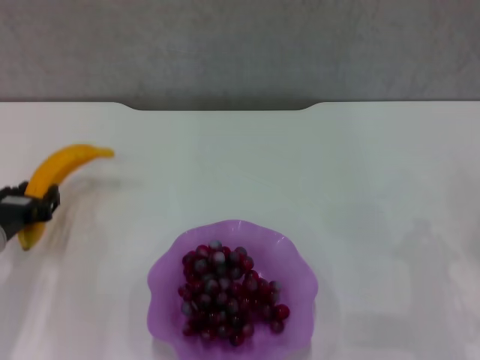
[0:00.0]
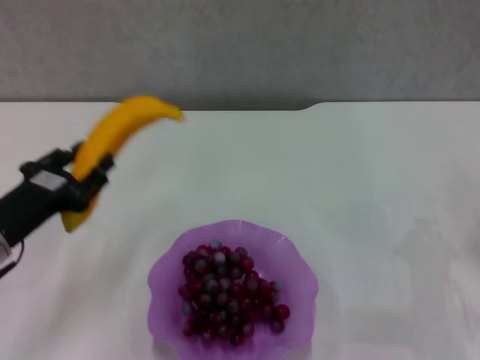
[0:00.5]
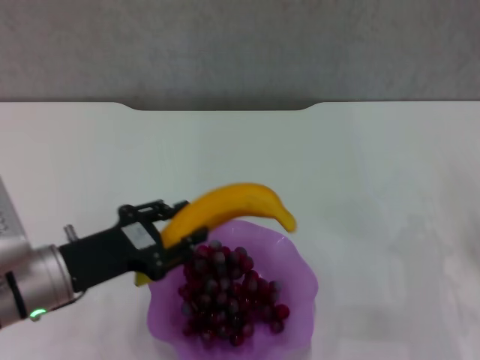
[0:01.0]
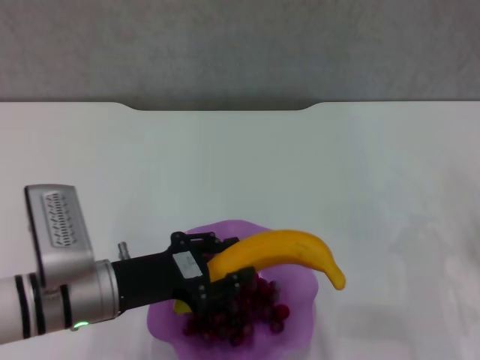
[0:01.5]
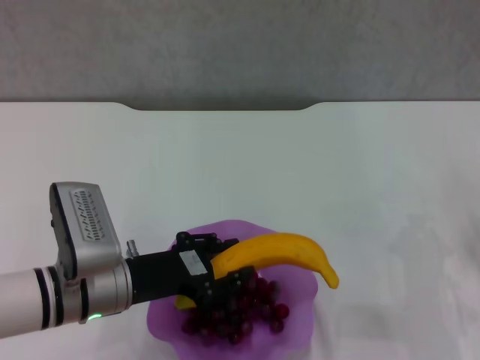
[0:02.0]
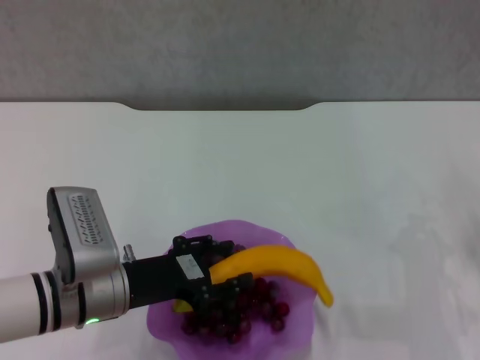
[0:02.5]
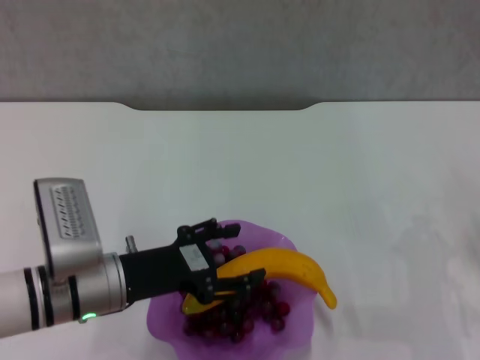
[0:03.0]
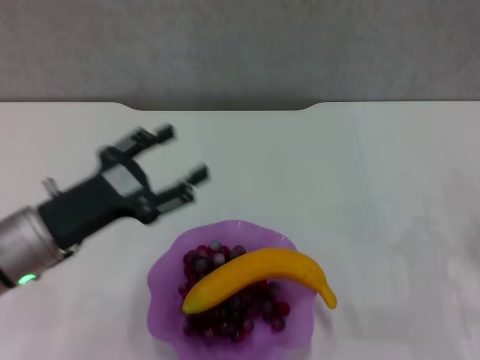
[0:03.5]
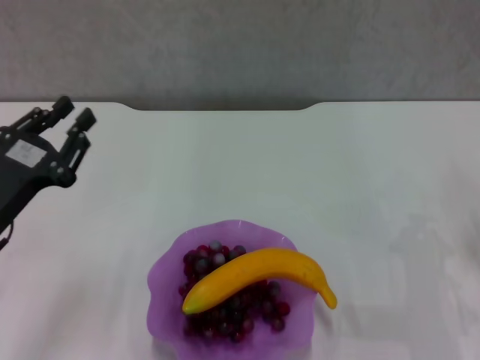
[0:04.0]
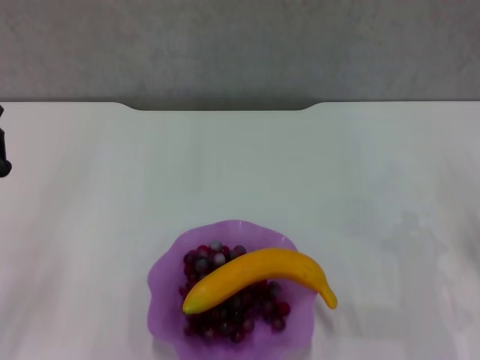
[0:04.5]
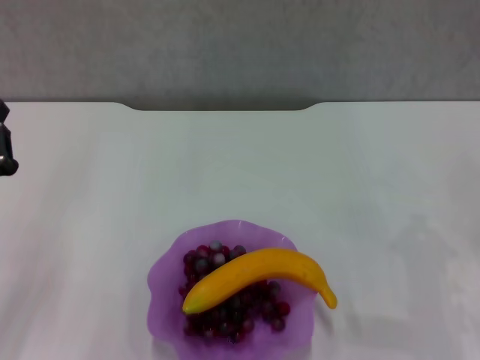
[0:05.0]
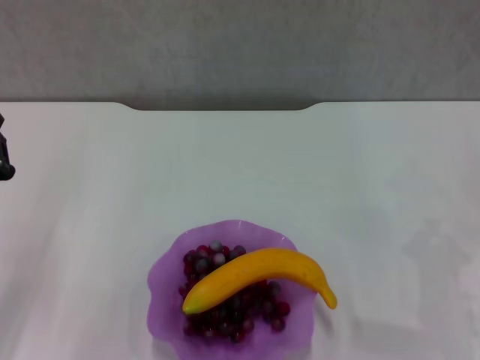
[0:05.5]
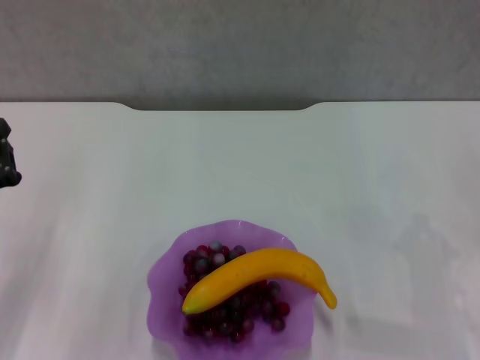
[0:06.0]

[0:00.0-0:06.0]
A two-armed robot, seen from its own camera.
Step, 0:00.0 to 0:03.0: Place the grape in the purple plate with left gripper.
0:00.0 to 0:02.0: The left gripper is displaced to the right by about 10 cm.
0:02.0 to 0:04.0: The left gripper is displaced to the left by some 10 cm, and opens, then closes once more.
0:04.0 to 0:06.0: The left gripper closes its fingers.

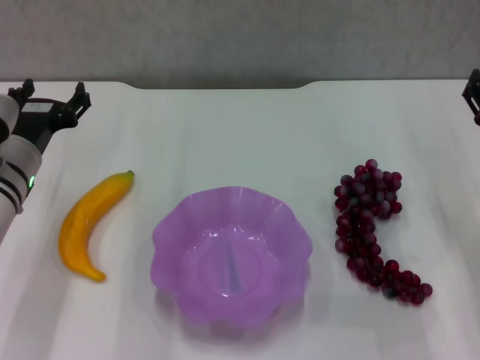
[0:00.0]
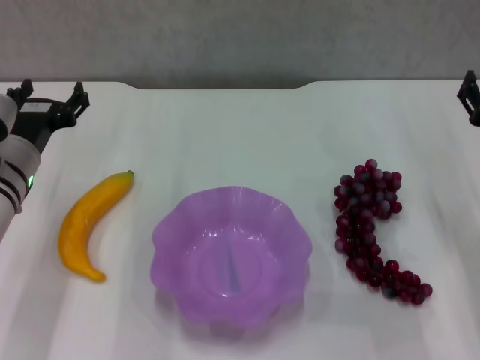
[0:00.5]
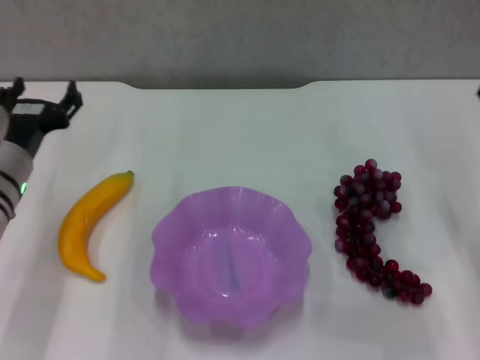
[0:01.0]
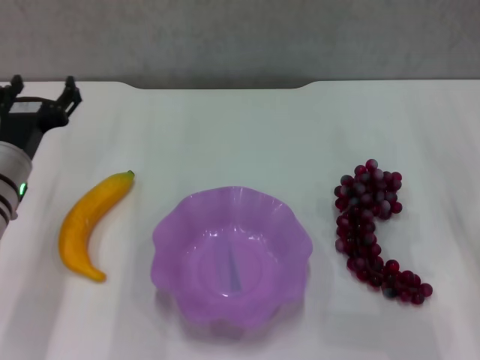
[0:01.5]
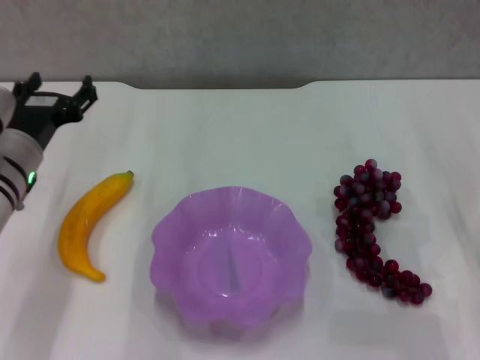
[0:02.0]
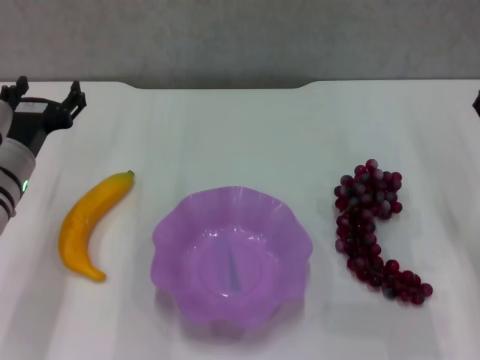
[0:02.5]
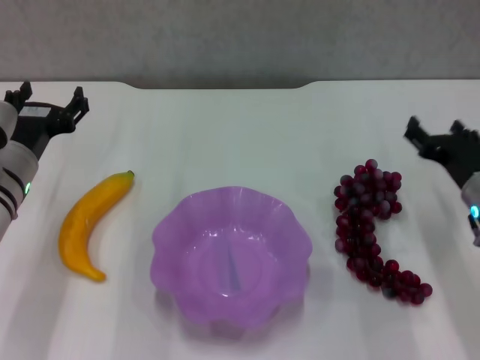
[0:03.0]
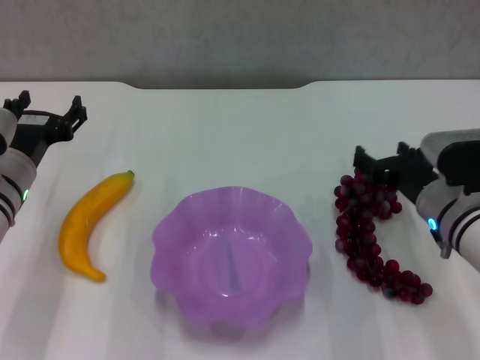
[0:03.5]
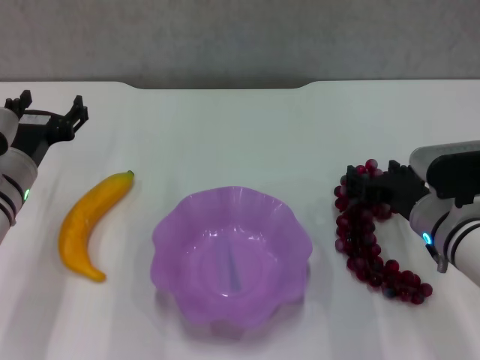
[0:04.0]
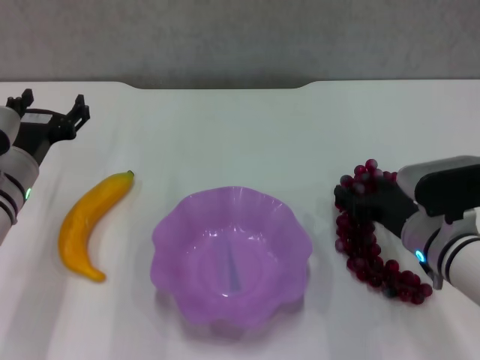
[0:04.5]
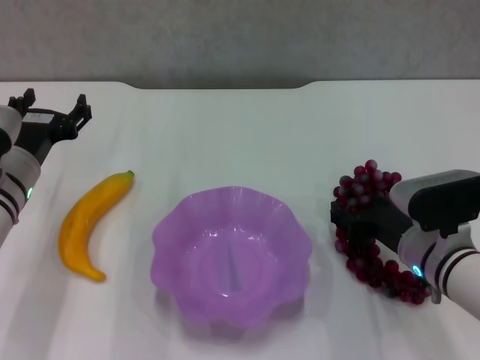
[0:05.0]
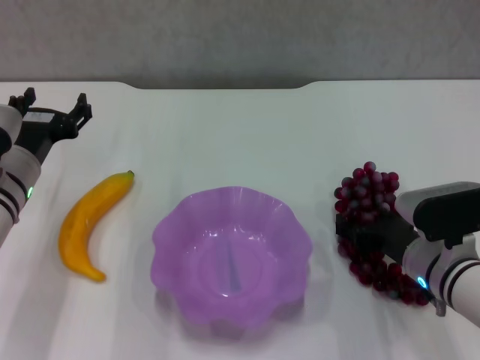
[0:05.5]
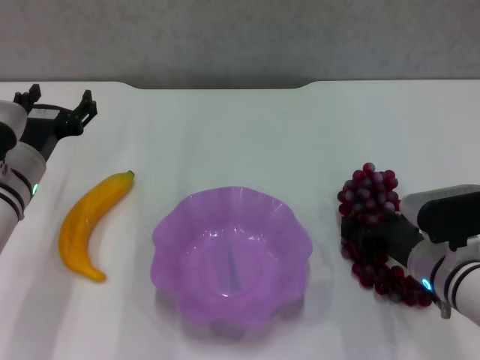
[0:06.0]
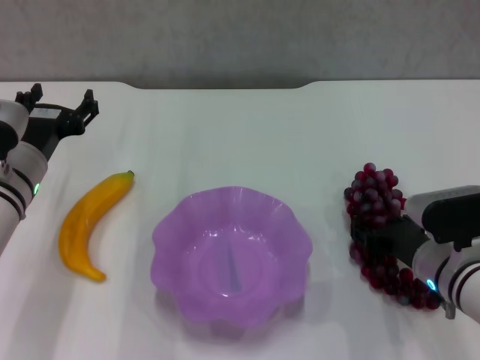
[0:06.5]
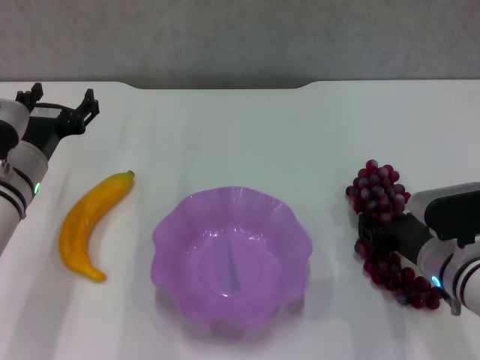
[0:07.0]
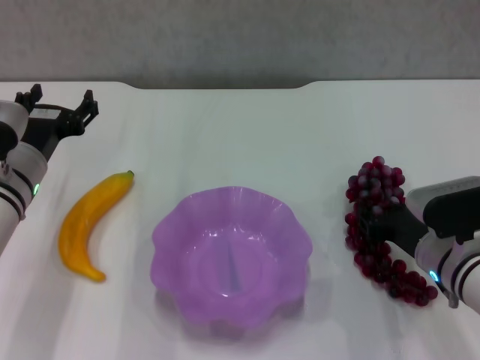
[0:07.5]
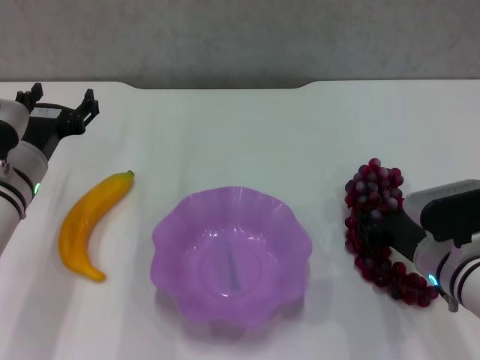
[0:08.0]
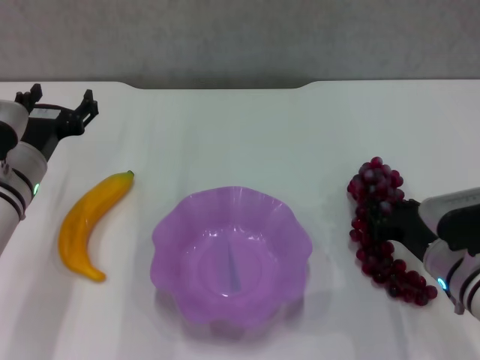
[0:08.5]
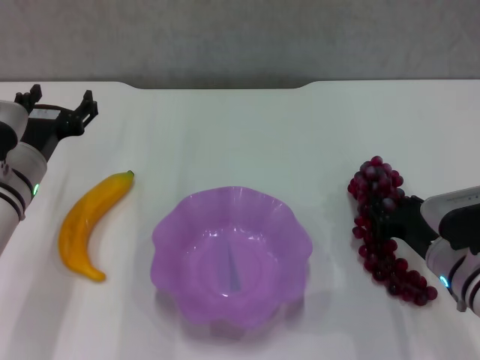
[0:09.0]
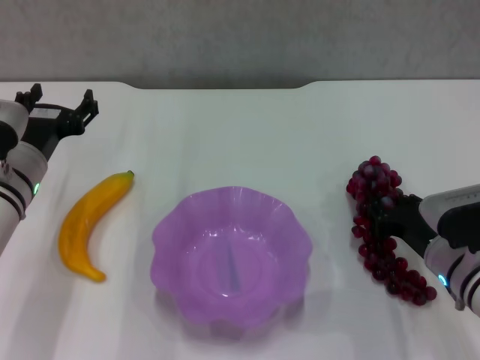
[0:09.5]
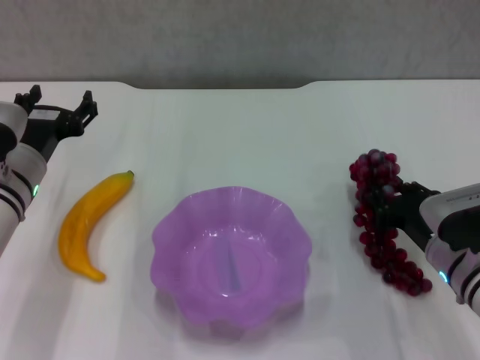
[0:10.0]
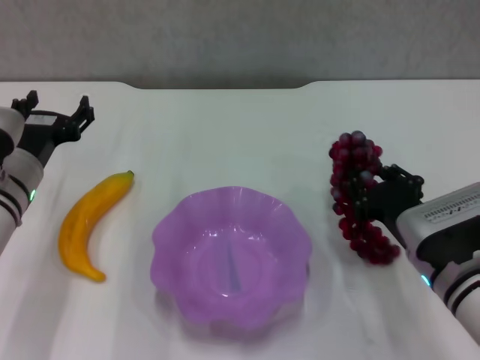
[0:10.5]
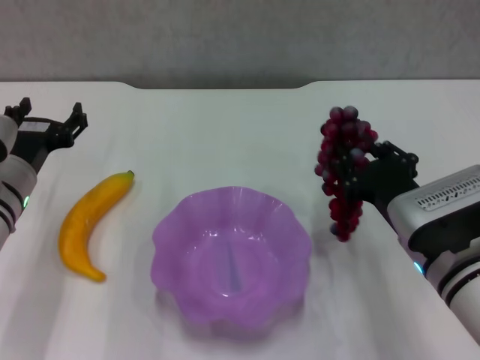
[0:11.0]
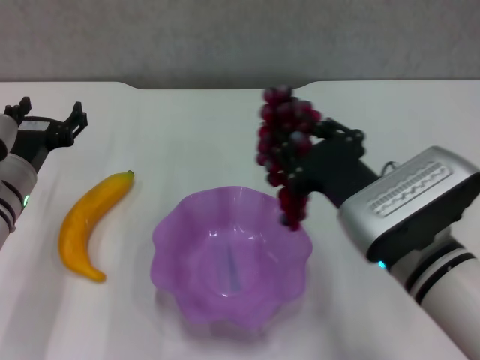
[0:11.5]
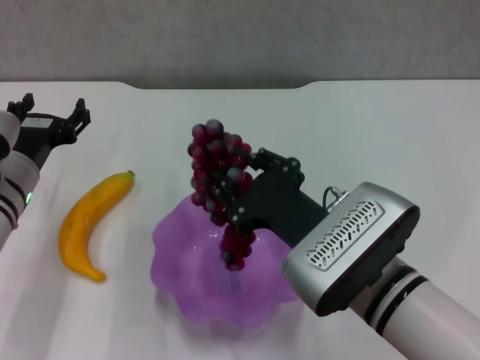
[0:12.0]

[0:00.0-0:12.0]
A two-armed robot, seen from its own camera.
Step, 0:00.0 to 0:06.5: Grasp the grape with right gripper.
0:00.0 to 0:02.0: The grippers move only a little.
0:02.0 to 0:04.0: The right gripper moves to the left, some 10 cm.
0:04.0 to 0:06.0: There are only small adjustments of the grippers.
0:06.0 to 0:08.0: The right gripper closes up.
0:08.0 to 0:10.0: The grippers make only small movements.
0:10.0 to 0:12.0: The right gripper goes some 15 cm to the left, upward and backward.

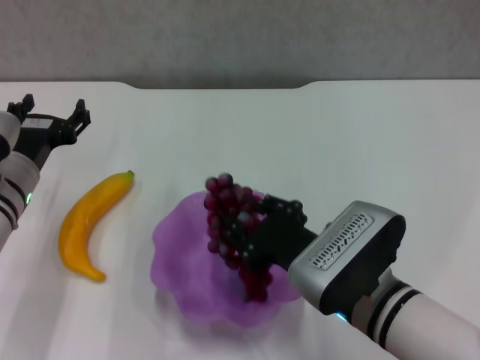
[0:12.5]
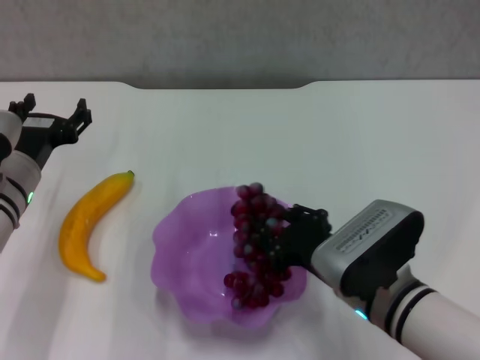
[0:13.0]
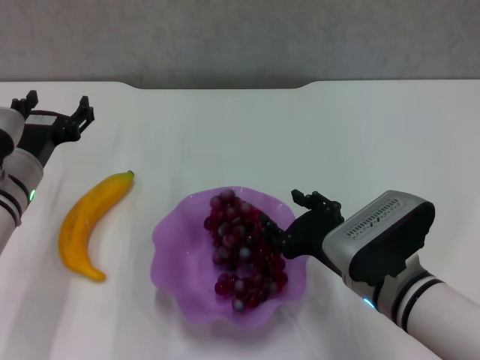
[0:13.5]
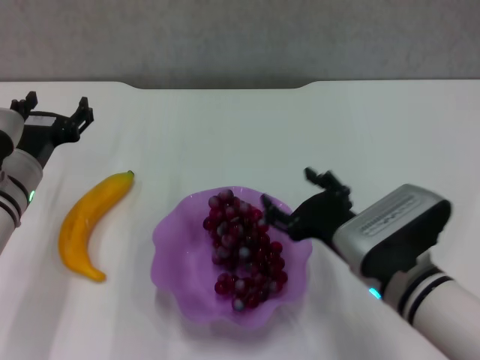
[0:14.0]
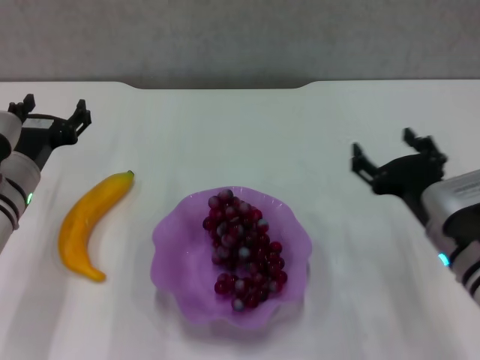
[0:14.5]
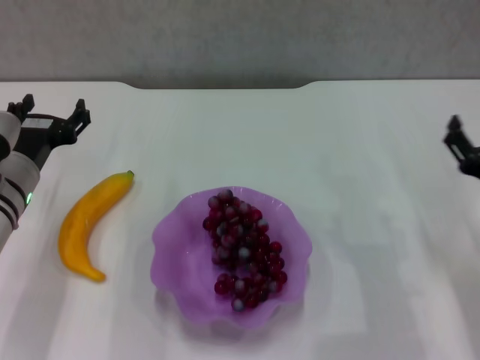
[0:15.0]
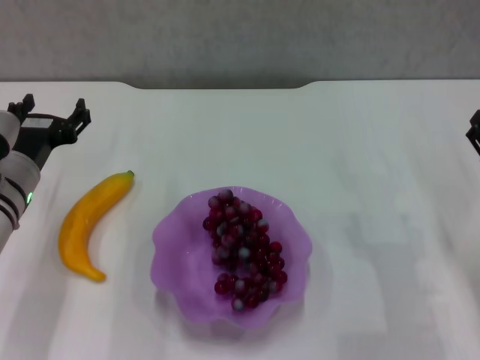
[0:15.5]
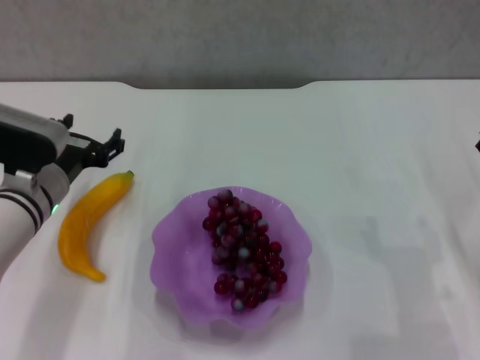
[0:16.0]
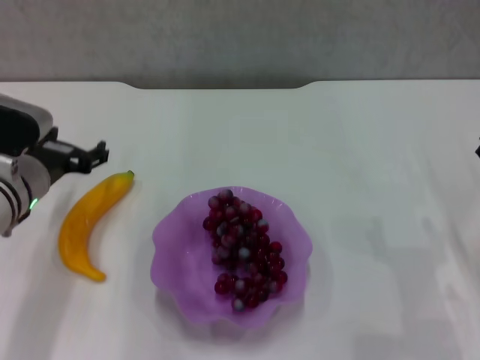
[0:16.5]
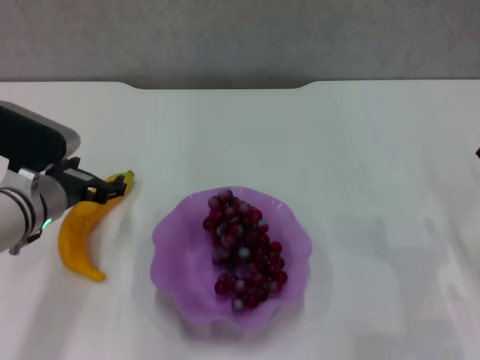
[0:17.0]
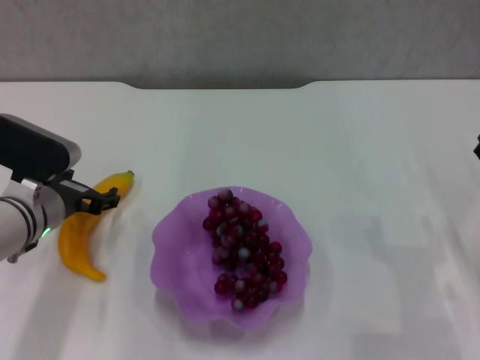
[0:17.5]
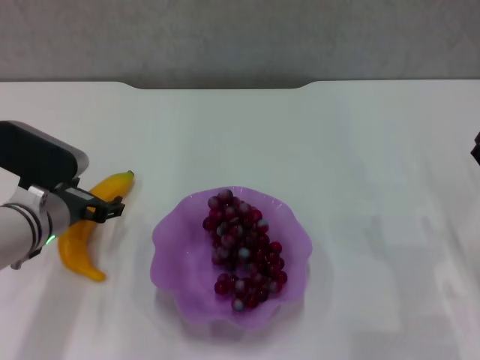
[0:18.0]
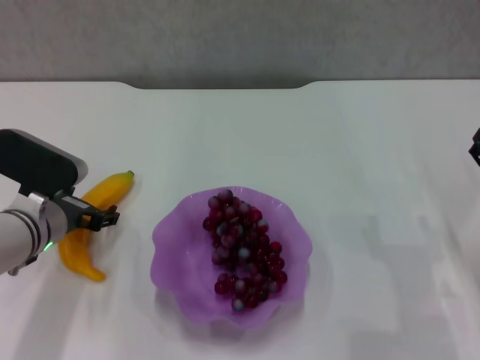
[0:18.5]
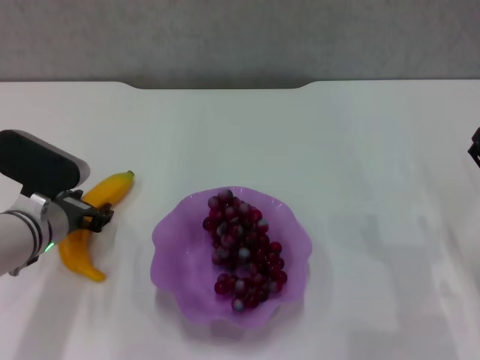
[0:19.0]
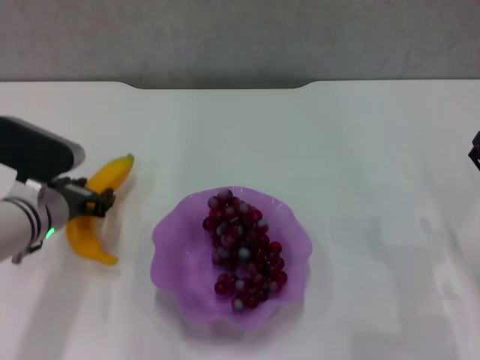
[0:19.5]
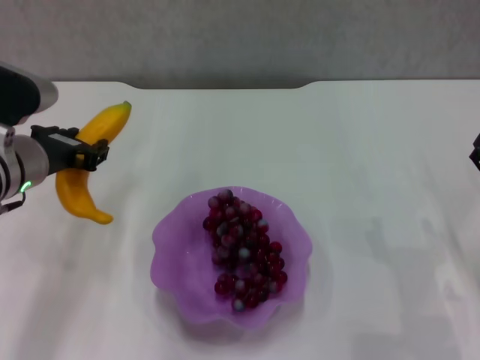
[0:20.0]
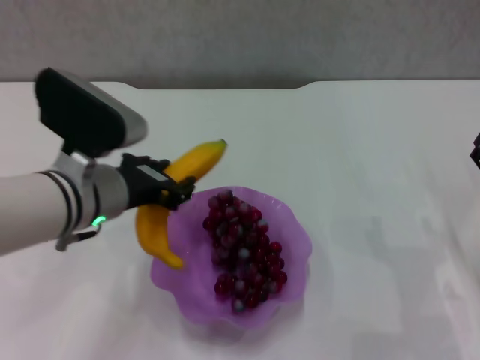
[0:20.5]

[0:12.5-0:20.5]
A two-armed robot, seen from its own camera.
Step, 0:14.0 to 0:19.0: Grasp the banana with right gripper.
0:12.5 to 0:14.5: The right gripper travels to the right by approximately 10 cm, and opens up.
0:14.5 to 0:16.5: The right gripper shifts about 10 cm to the right.
0:16.5 to 0:18.5: The grippers move only a little.
0:18.5 to 0:20.5: The left gripper heads upward and to the right, covering about 10 cm, and closes up.
